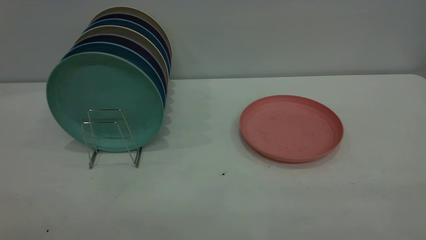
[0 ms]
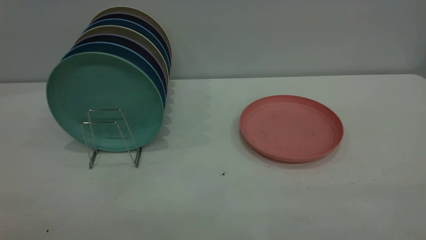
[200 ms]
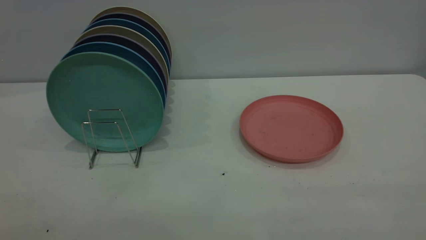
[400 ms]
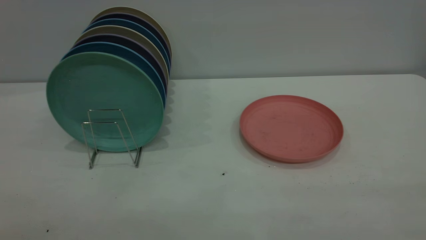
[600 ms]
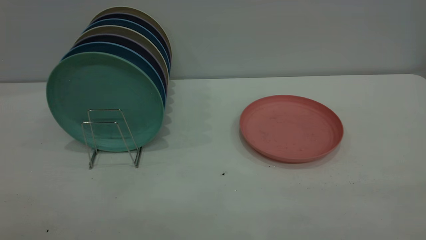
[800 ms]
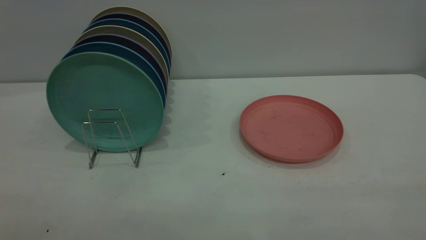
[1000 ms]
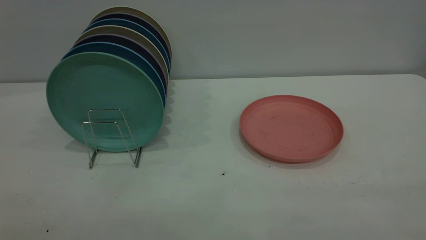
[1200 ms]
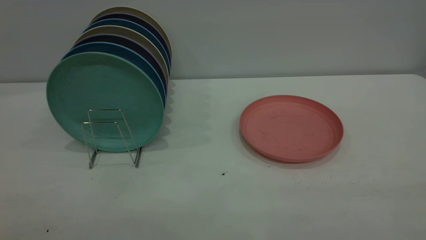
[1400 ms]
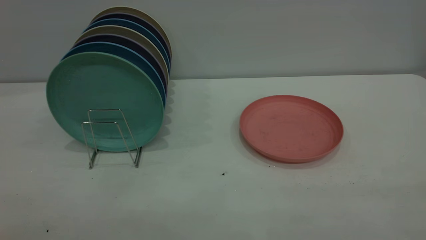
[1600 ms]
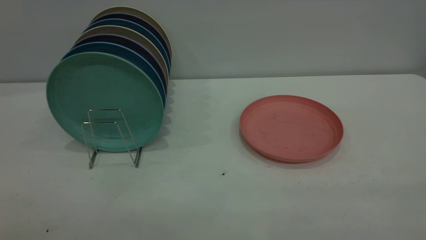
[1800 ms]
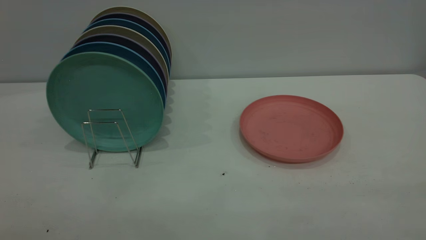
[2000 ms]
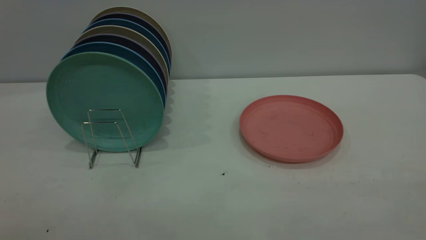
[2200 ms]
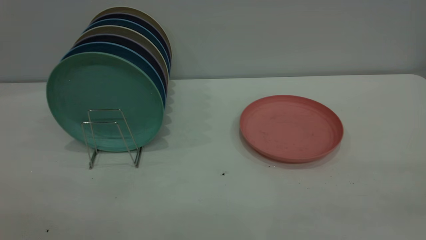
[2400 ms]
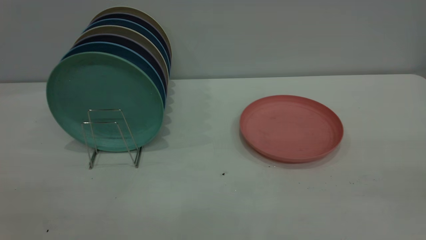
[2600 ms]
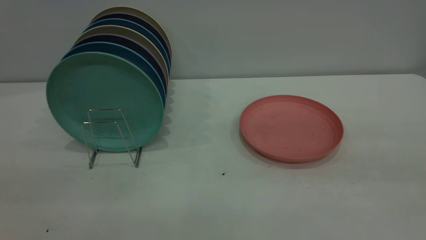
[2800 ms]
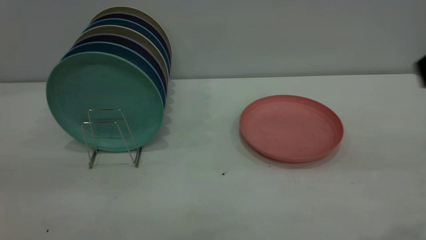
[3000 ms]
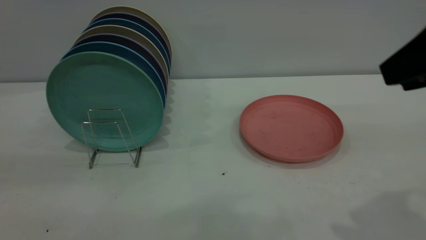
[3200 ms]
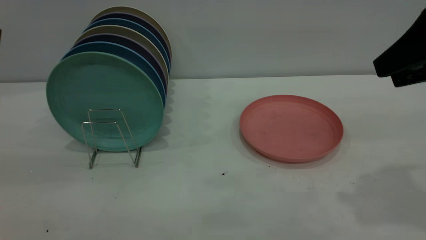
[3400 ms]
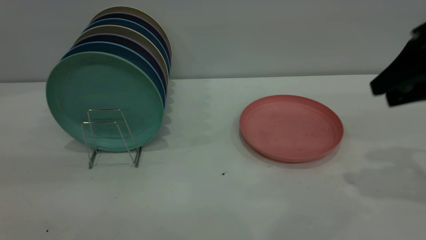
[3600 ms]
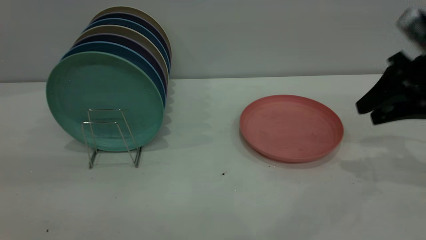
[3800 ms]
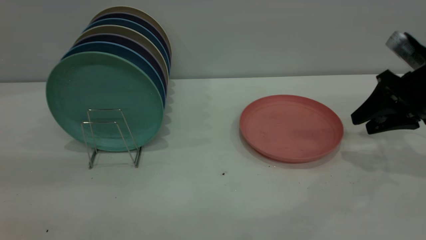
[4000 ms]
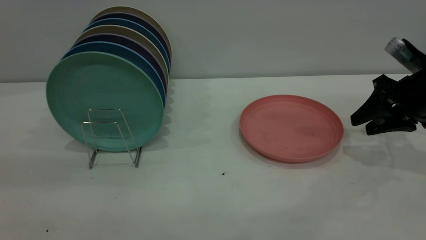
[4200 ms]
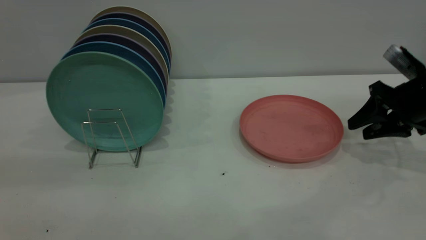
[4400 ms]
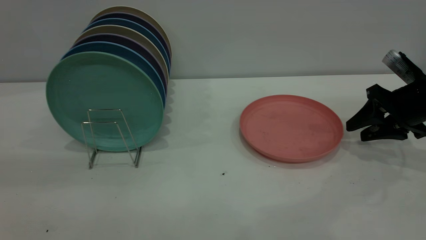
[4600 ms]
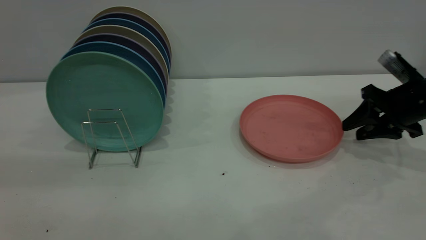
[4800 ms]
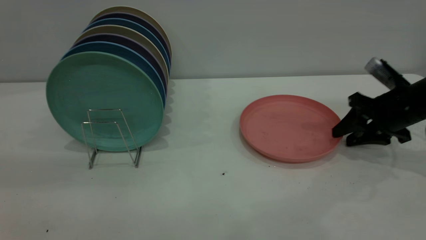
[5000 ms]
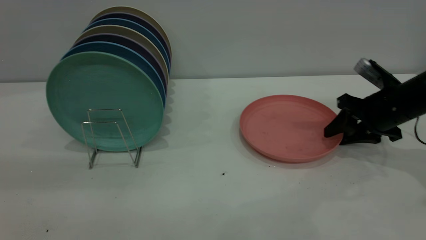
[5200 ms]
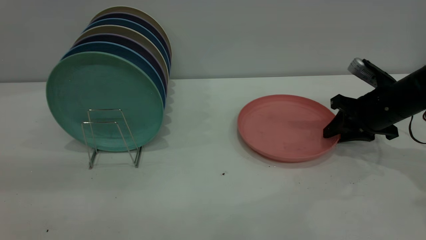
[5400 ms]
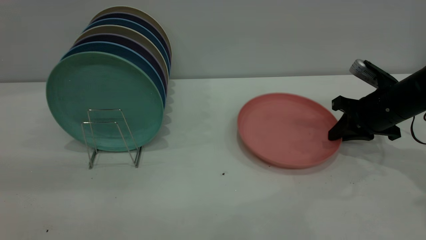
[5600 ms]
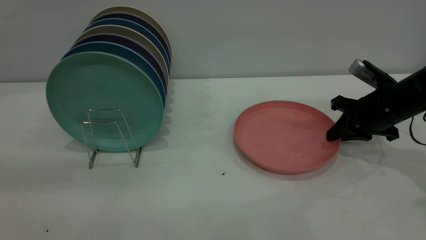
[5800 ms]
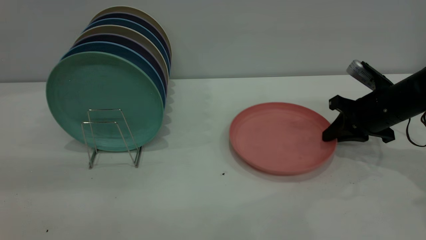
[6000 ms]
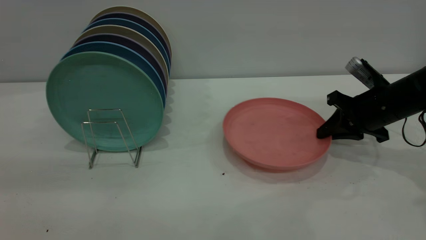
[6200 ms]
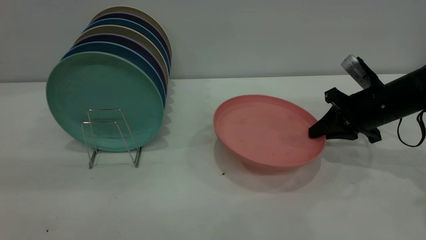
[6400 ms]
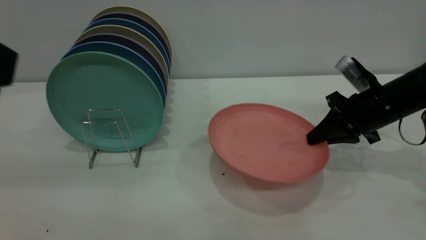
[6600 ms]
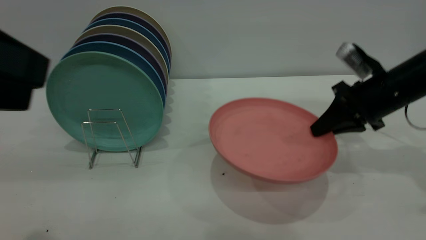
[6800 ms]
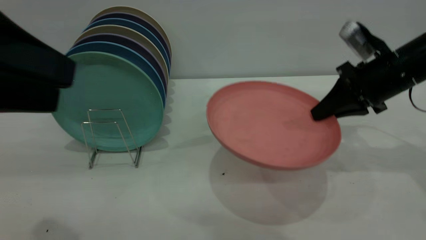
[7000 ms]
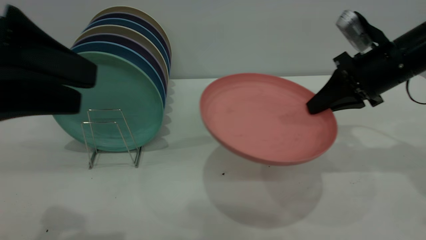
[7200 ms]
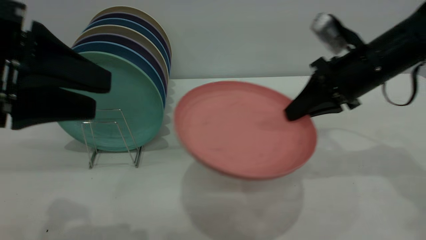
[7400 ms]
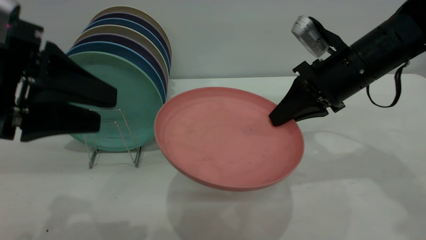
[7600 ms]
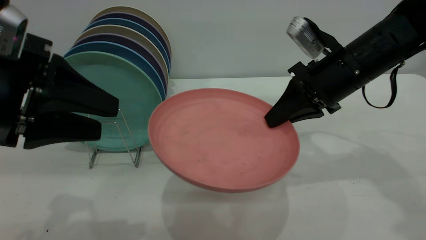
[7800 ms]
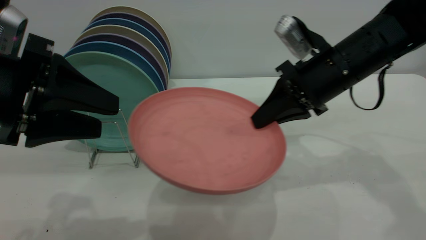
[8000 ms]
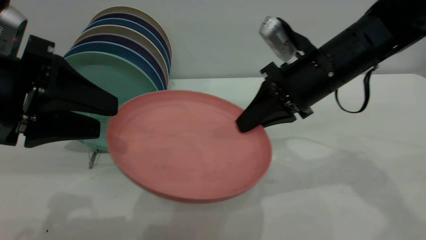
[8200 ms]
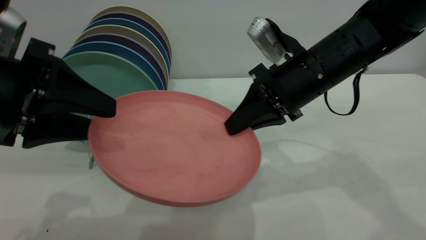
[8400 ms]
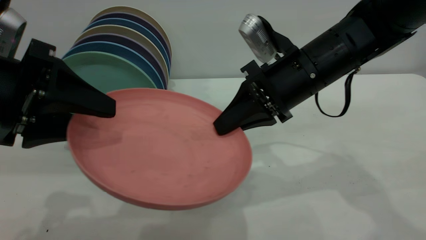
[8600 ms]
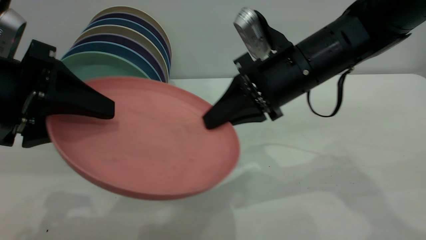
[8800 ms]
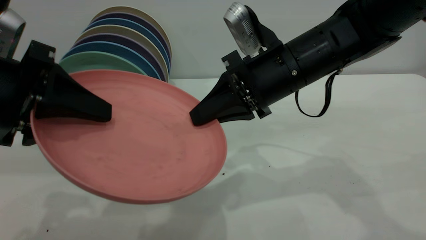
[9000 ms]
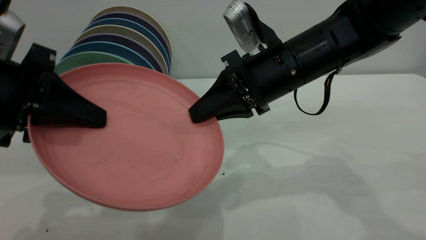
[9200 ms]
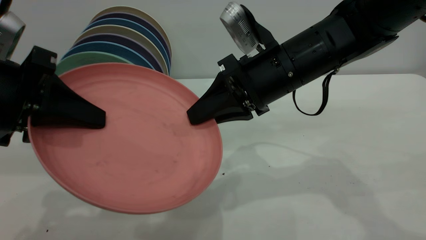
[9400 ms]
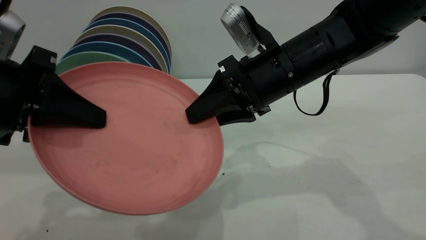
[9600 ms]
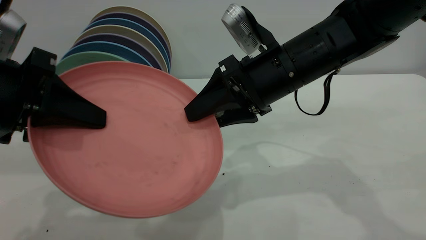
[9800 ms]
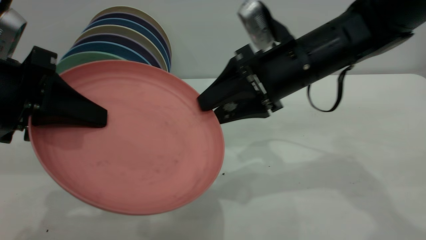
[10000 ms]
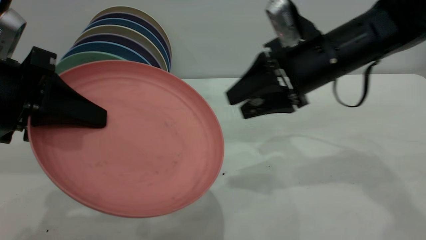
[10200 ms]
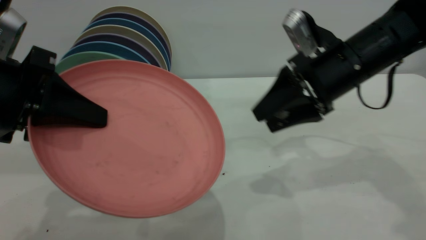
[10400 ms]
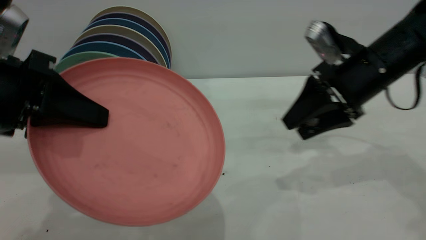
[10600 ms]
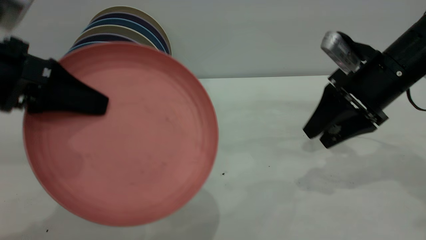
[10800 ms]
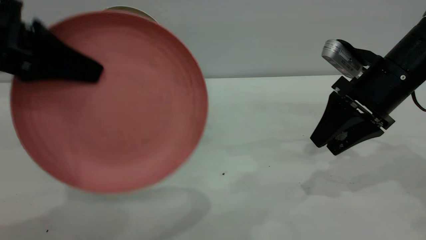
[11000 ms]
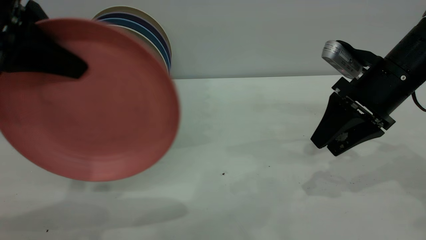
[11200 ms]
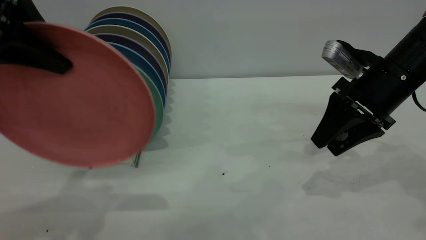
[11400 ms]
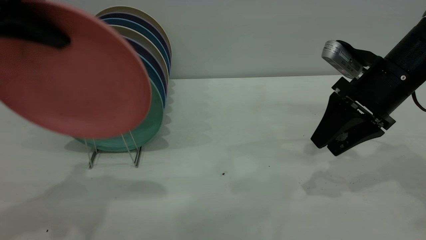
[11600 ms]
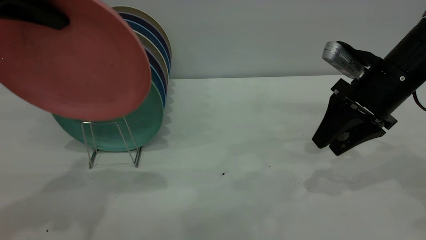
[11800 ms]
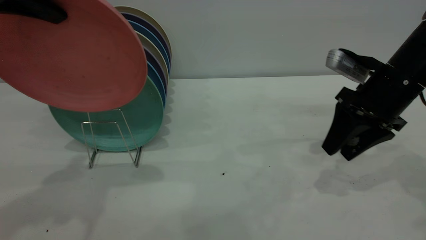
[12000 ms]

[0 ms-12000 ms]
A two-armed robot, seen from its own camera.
Task of the whole recording: the right gripper grasp the pink plate, the right gripper pass the pink plate to the left gripper, and the left gripper place the pink plate on the plate rack.
Step, 0 ms to 7000 ms: Pick up the plate with the right gripper.
Step, 7200 ms to 10800 ms: Pass the plate from the right gripper to the left gripper.
0 ms to 1600 ms: Neither gripper changes place.
3000 ms to 4400 ms: The right gripper heads forward and downward, covering some 30 cm.
4400 ms to 6000 ms: The right gripper goes about 5 cm to the left, and closes its fingers.
6000 ms to 7600 ms: The right gripper heads to the left and upward, covering approximately 15 cm. Meanwhile the left gripper travels downward and forward by roughly 15 cm.
7600 ms to 9000 ms: The left gripper closes its fingers; the right gripper moves to the left, some 10 cm.
9000 ms to 10400 ms: The right gripper goes roughly 10 cm to the right, and opens. The left gripper closes its fingers.
10400 ms to 12000 ms: The left gripper heads upward and forward, covering approximately 15 cm. The right gripper is displaced to the right by about 5 cm.

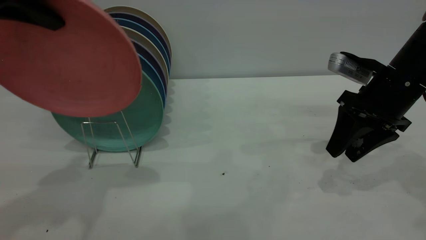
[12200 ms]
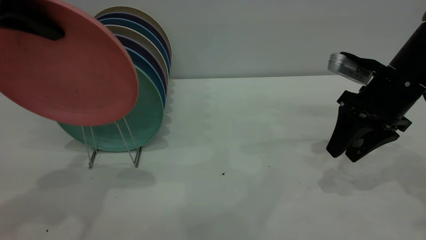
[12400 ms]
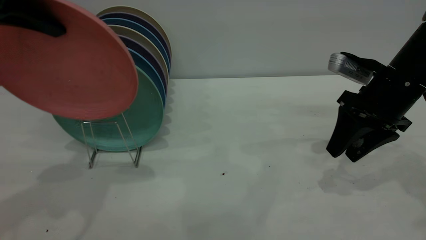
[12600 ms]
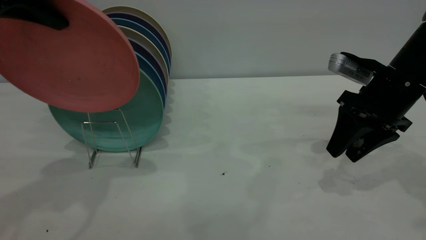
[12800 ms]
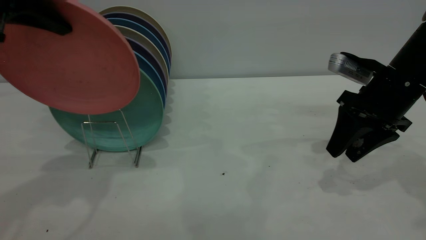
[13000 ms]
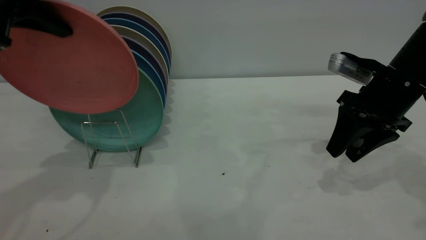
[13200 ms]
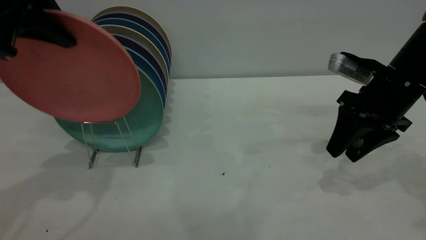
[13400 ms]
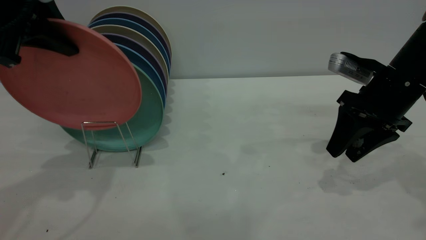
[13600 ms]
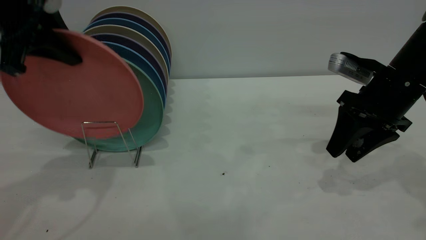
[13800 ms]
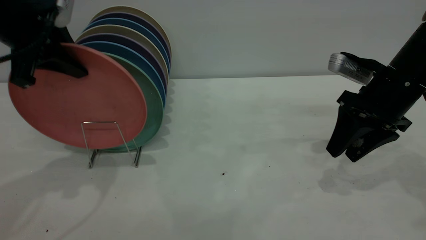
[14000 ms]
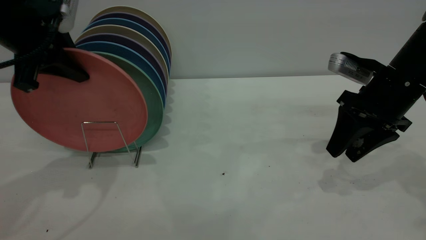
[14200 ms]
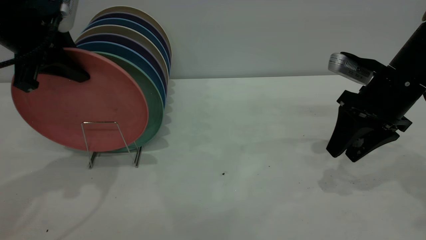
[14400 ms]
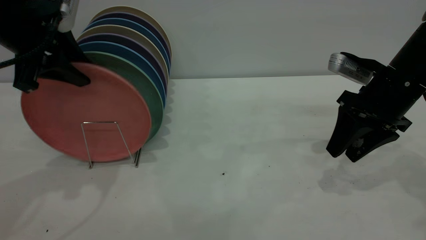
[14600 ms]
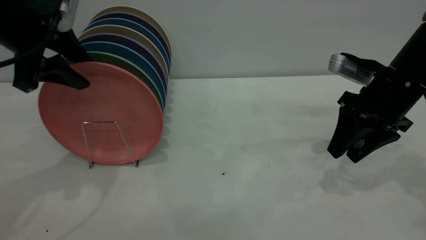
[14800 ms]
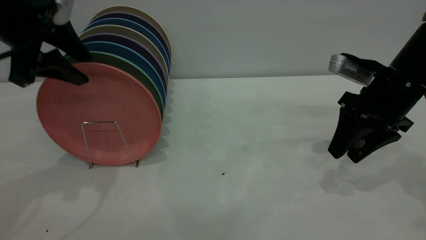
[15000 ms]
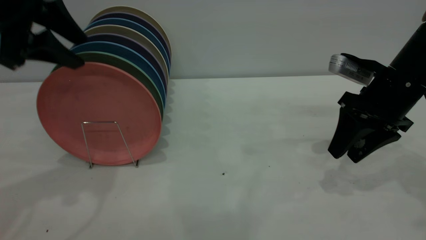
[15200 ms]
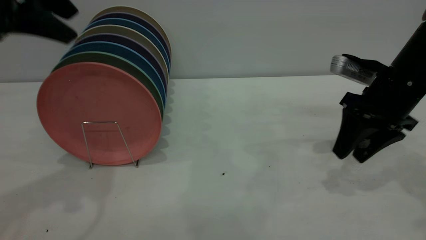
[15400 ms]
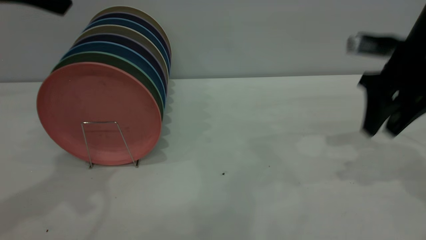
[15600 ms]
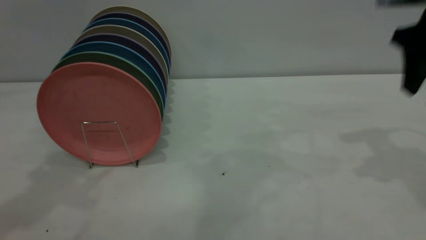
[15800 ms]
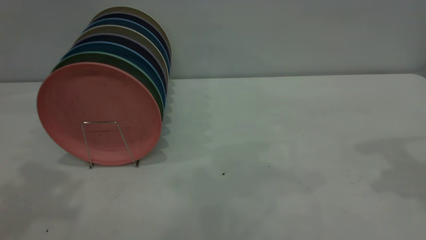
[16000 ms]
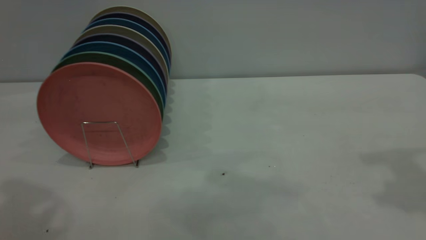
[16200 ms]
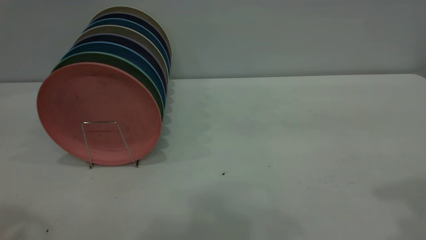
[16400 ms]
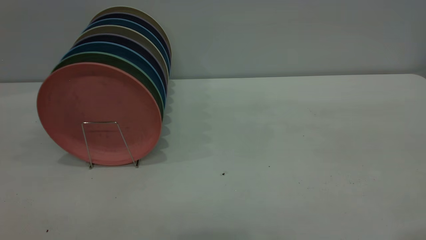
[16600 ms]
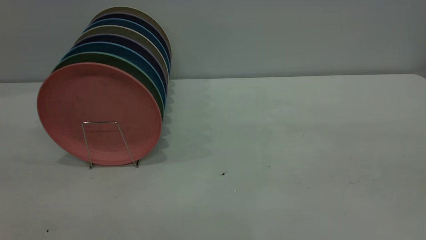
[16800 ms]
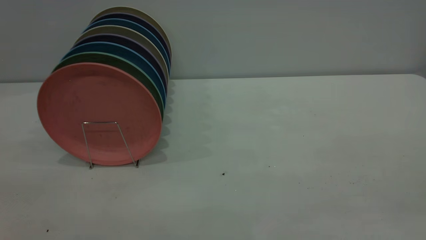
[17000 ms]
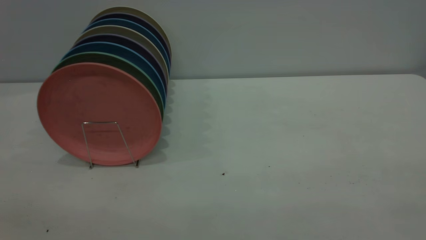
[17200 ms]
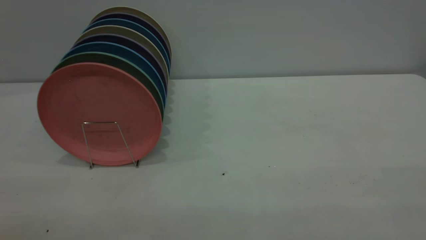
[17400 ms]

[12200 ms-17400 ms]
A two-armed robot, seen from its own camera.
Task of the whole recording: the right gripper grasp the pink plate, the right gripper pass the pink plate to the left gripper, and the left gripper place the pink plate on the plate rack.
Step, 12200 ms to 15400 ms: Place the plate on the shelf.
12200 ms to 14000 ms: The left gripper travels downward and forward by some 10 cm.
14000 ms to 15600 ms: The right gripper goes roughly 5 cm upward. Meanwhile the left gripper heads upward, covering approximately 10 cm, and opens its fingers.
15600 ms to 17400 ms: The right gripper goes roughly 35 cm backward.
